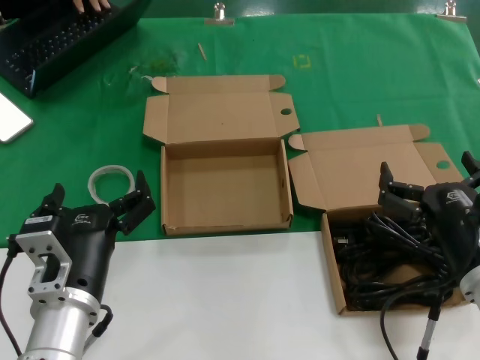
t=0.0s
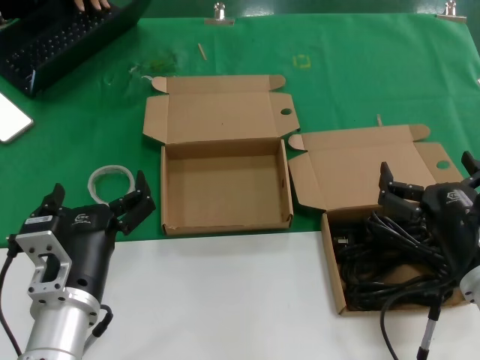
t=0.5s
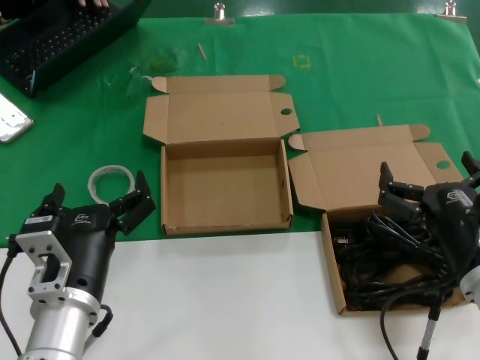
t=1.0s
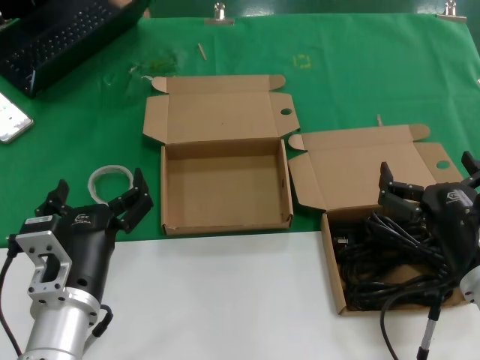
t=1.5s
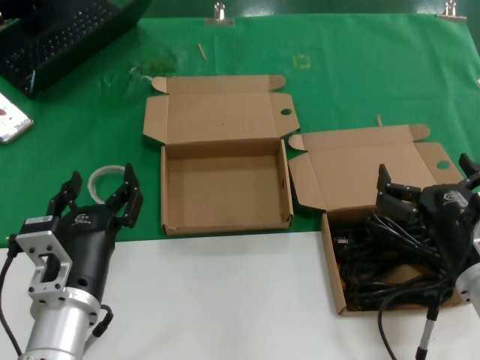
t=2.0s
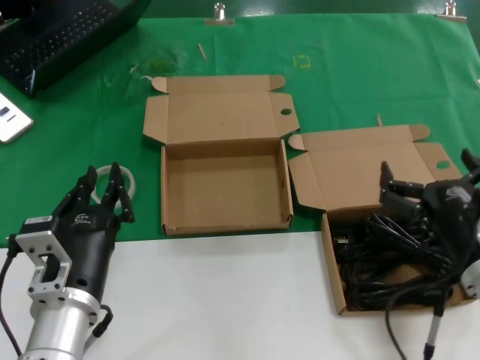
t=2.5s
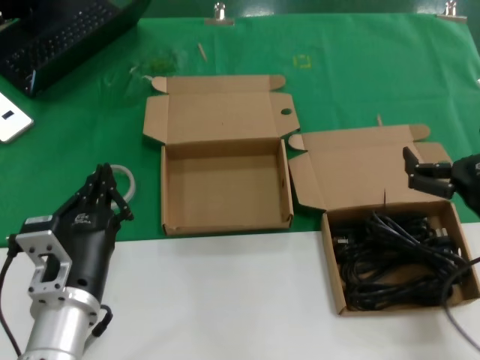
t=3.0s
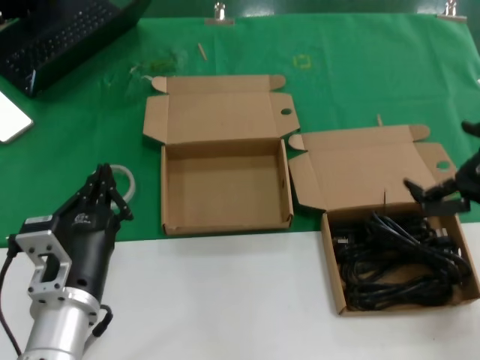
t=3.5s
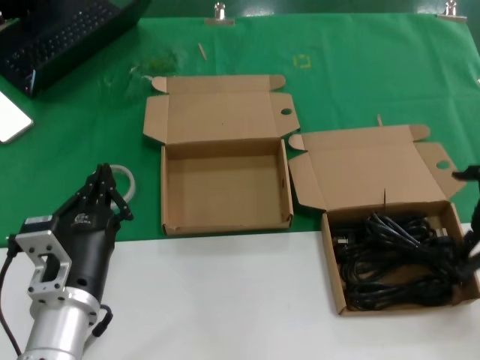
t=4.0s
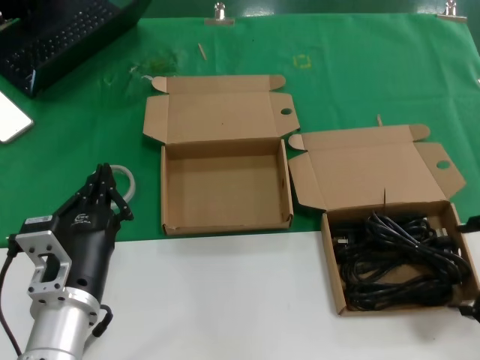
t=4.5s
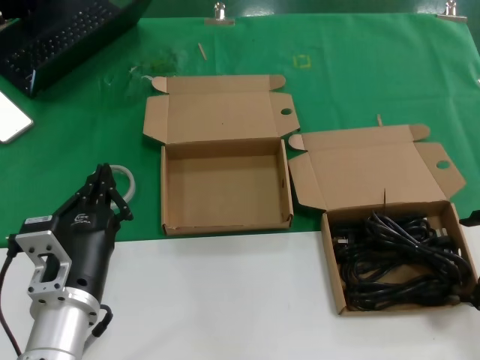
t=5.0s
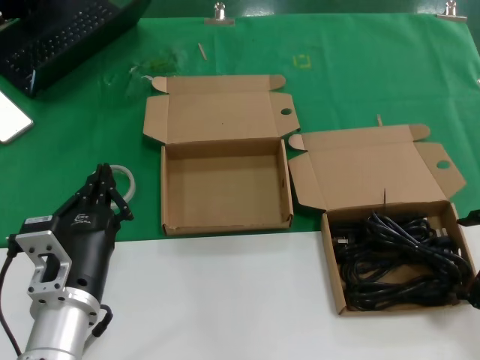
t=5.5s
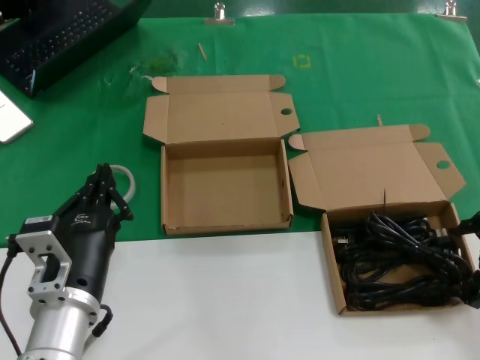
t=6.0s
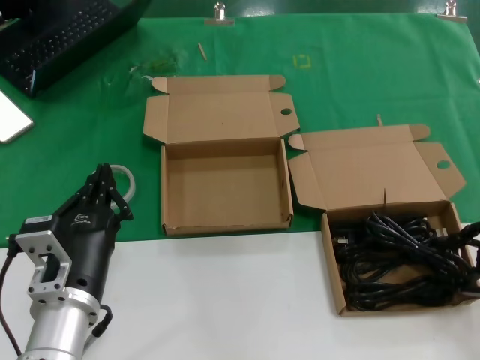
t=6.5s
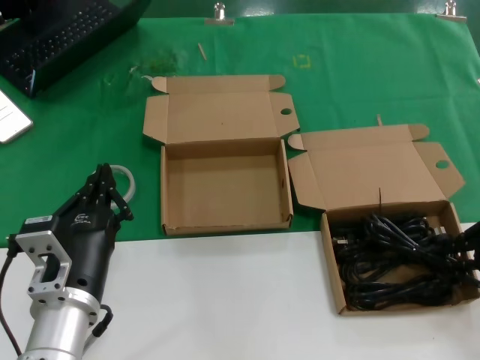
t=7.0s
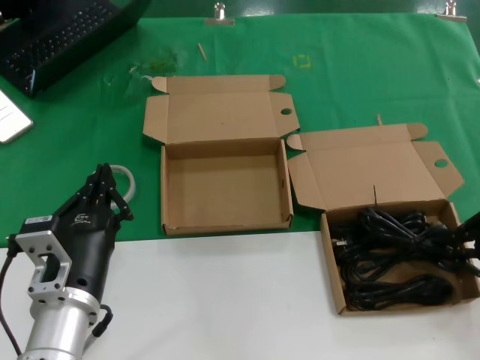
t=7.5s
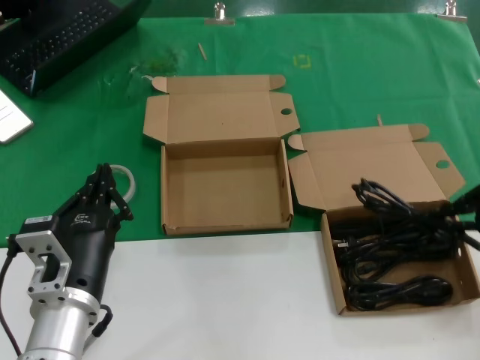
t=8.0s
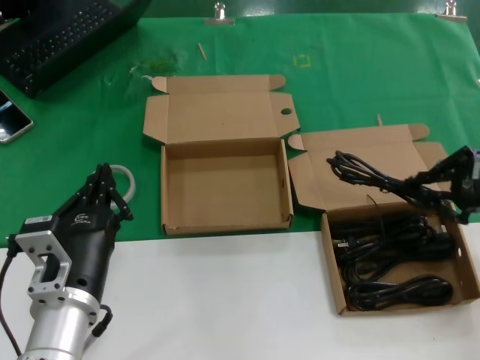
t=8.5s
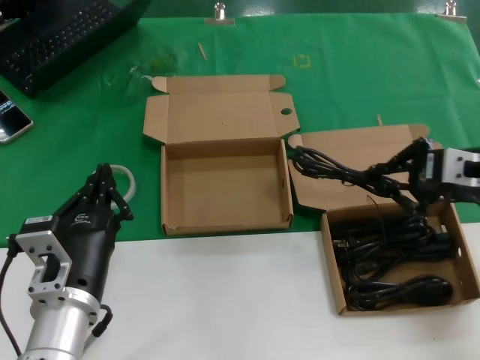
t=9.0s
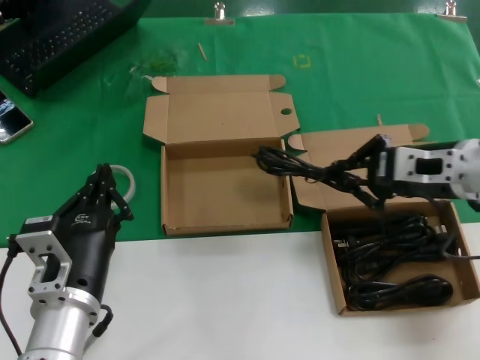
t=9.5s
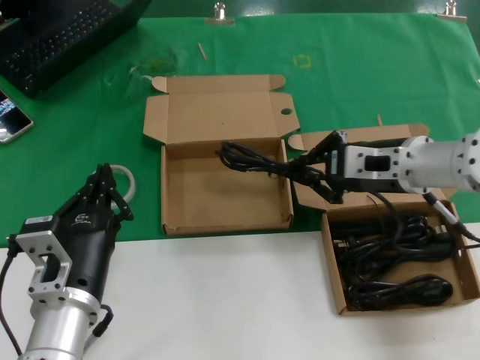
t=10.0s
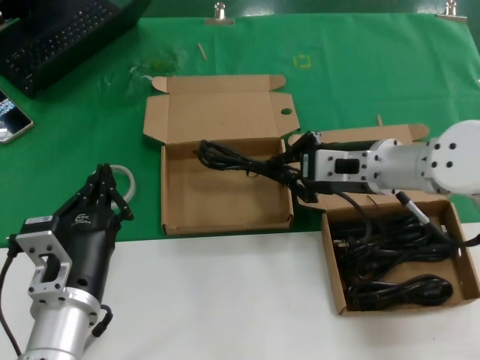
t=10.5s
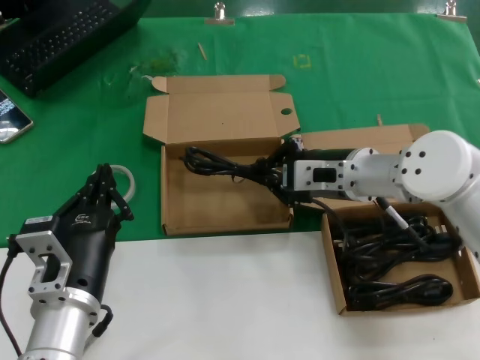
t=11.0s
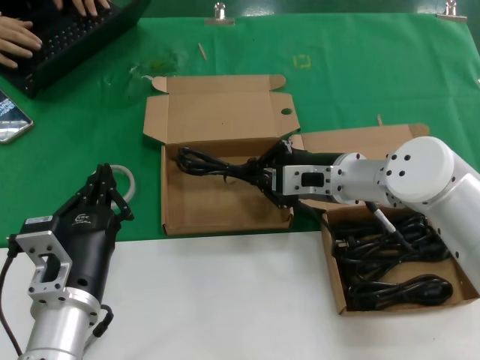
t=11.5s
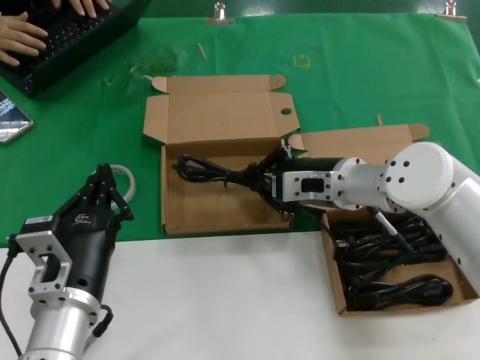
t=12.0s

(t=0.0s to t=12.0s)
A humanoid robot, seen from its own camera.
Task of the whole recording: take the parts from the box containing them and put them into an empty box.
Step, t=0.0s - t=6.5s: Grasp the data cable.
t=0.0s - t=2.0s: Neither hand changes place.
t=2.0s - t=4.0s: The right hand shifts roughly 20 cm to the right and upward.
t=4.0s - t=6.0s: The right hand shifts by about 5 cm.
t=6.0s - t=8.0s: The hands stay close to where they were, moving slightly.
t=8.0s - t=10.0s: The right hand goes approximately 20 cm to the left and forward.
t=10.0s - t=12.0s: The right hand travels to the left and downward by some 10 cm.

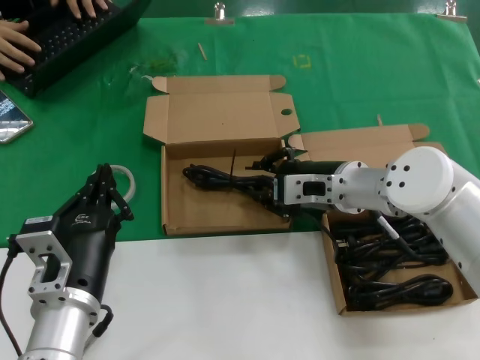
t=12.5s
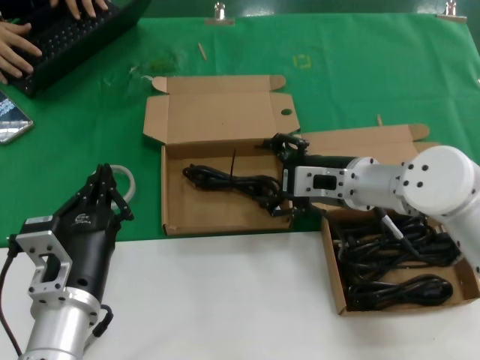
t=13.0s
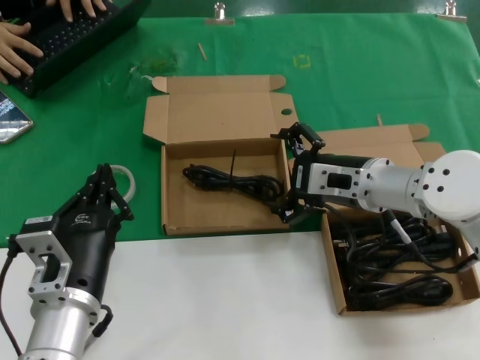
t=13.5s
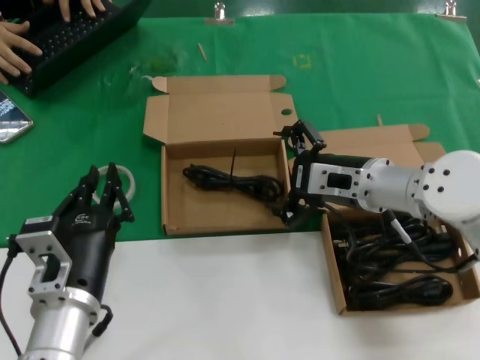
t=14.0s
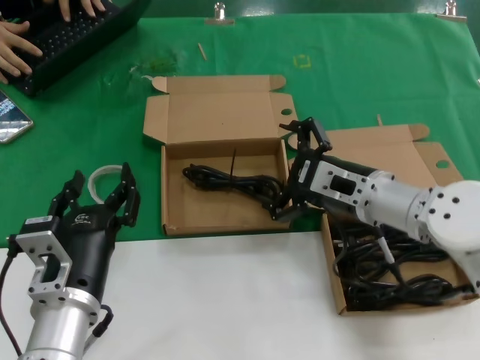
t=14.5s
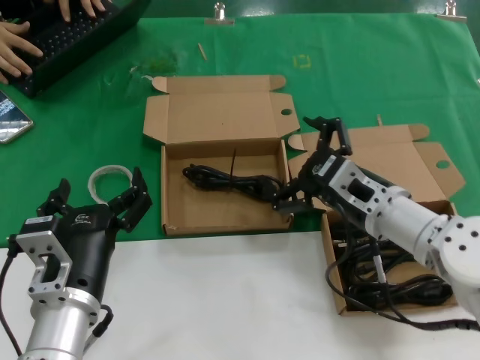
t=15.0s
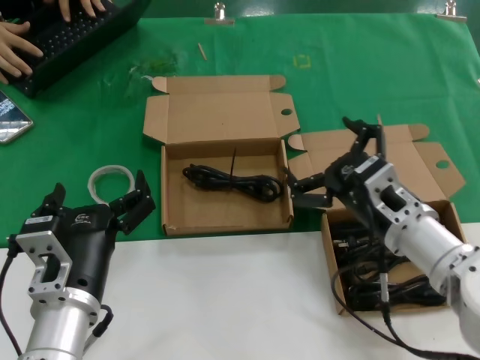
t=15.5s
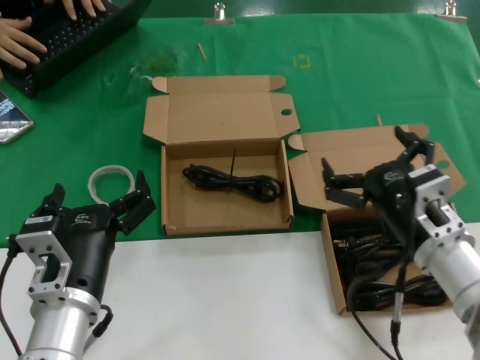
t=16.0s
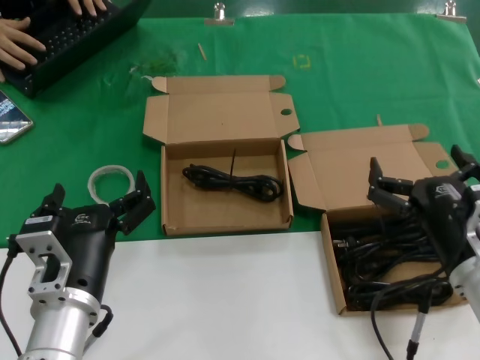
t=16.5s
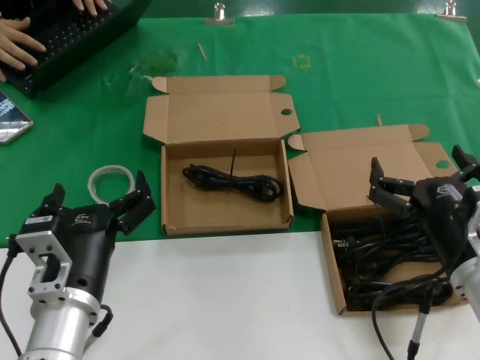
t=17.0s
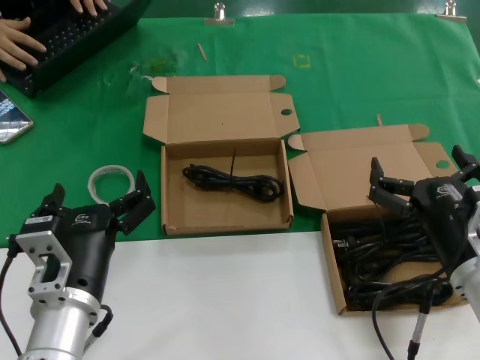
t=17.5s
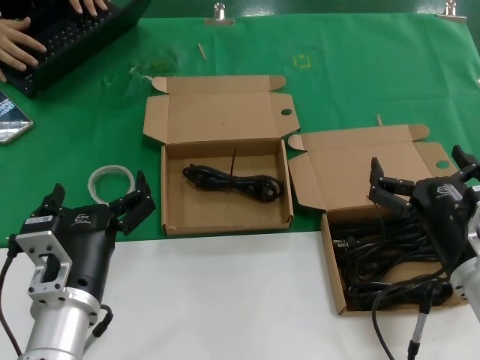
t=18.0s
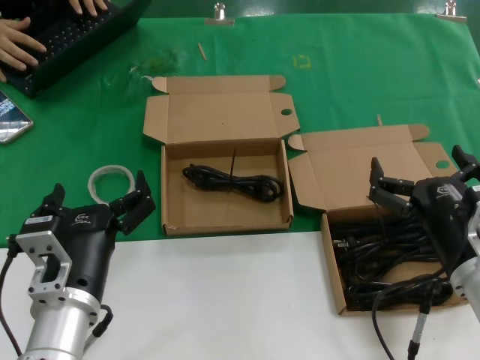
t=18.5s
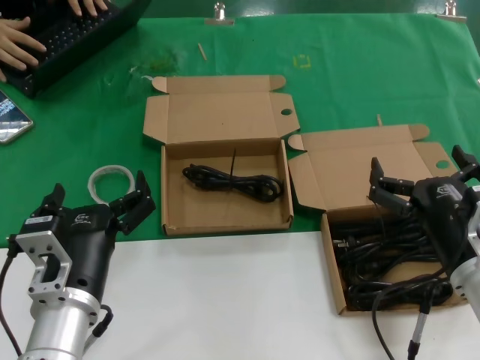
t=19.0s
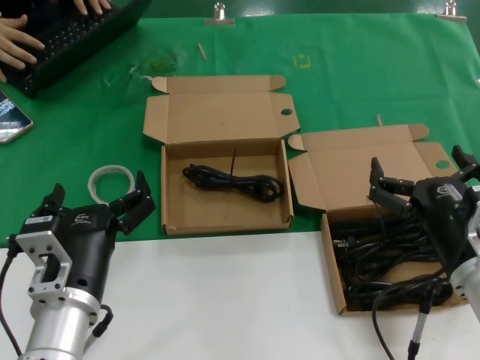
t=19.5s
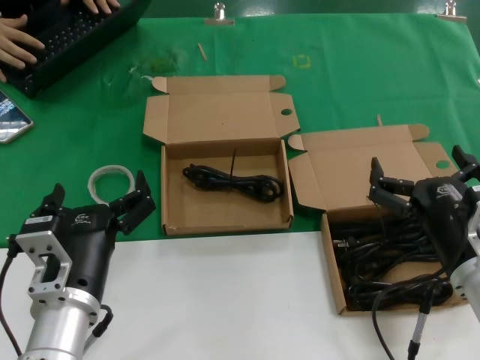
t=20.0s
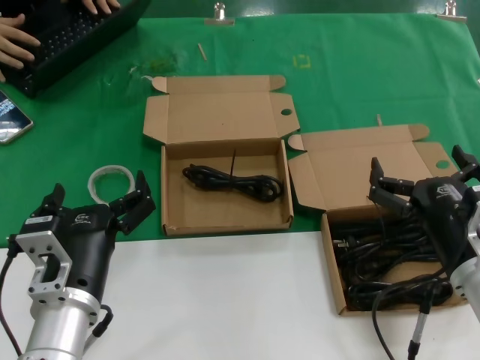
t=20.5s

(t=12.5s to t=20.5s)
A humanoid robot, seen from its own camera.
Task of the whole recording: take the parts from the box containing them and put them into an empty box.
t=14.5s - t=16.5s: The right hand goes approximately 15 cm backward and to the right.
t=16.5s - t=20.5s: Both hands stay about where they are.

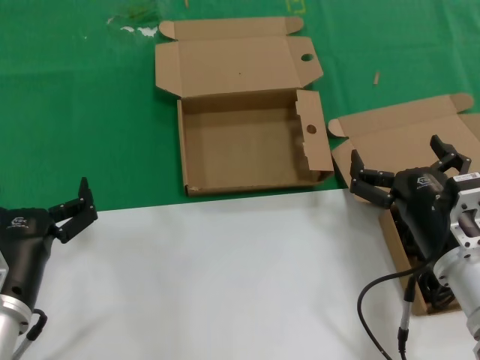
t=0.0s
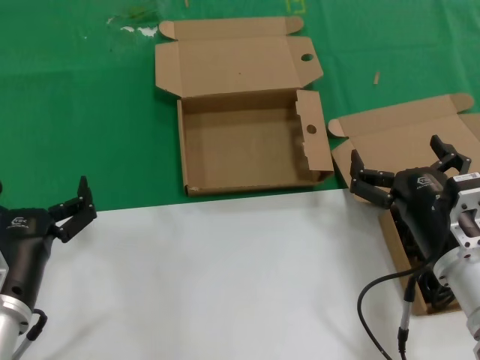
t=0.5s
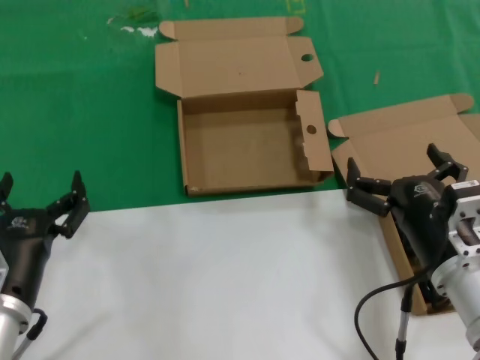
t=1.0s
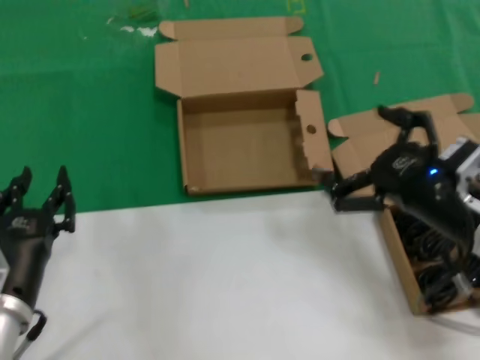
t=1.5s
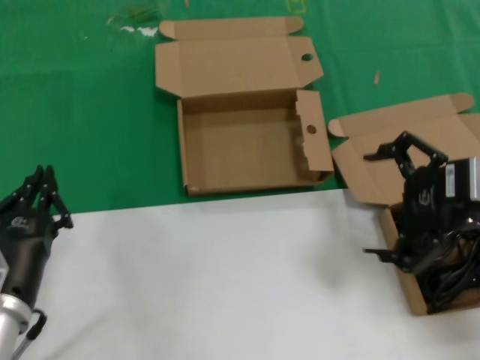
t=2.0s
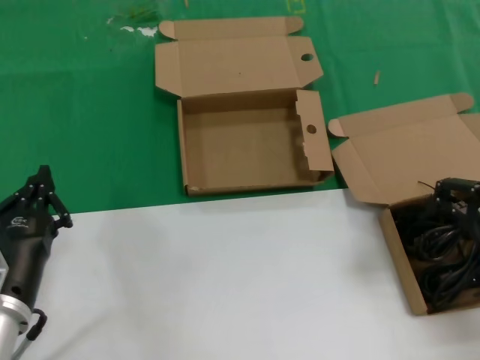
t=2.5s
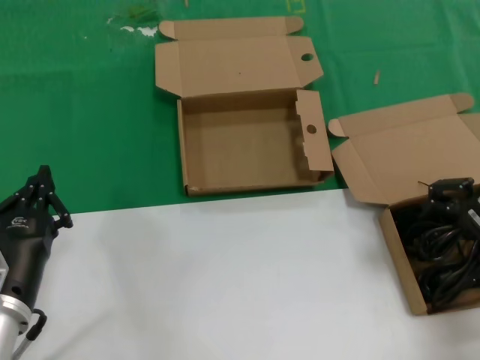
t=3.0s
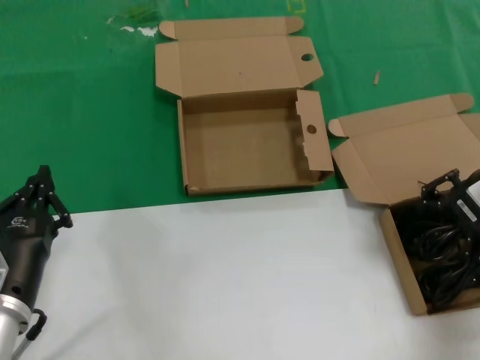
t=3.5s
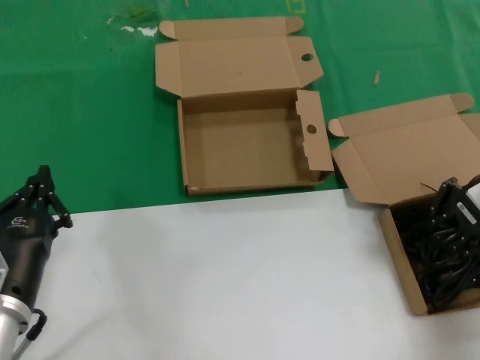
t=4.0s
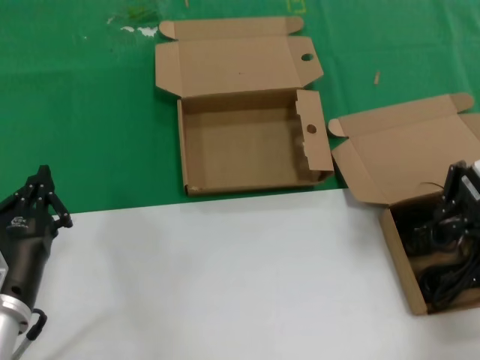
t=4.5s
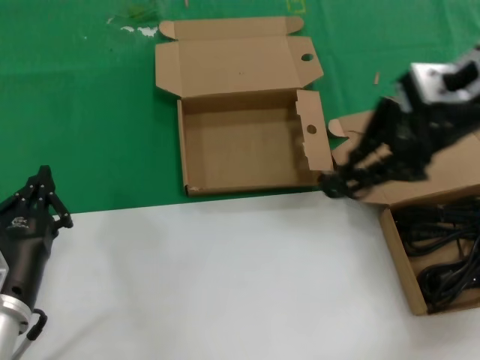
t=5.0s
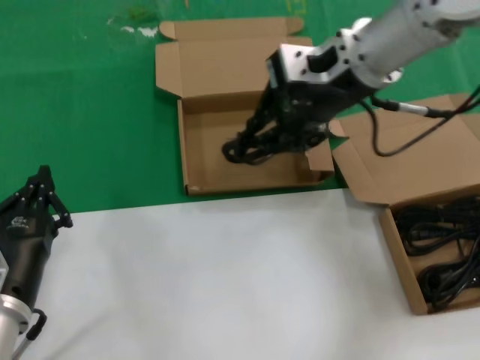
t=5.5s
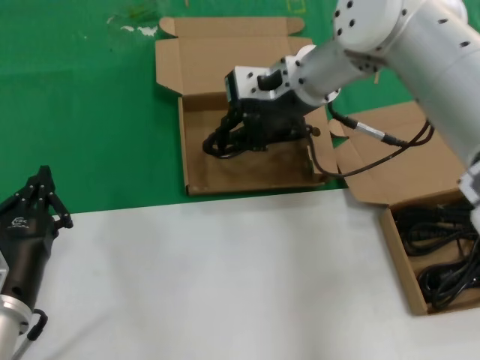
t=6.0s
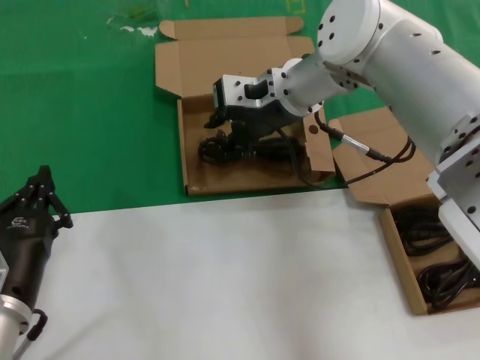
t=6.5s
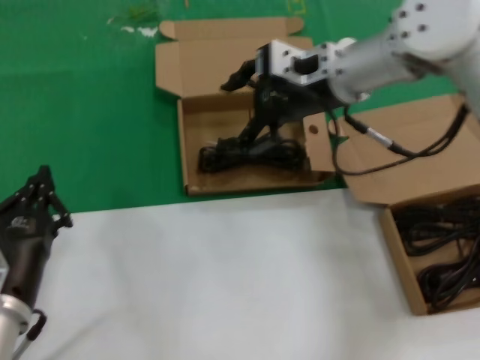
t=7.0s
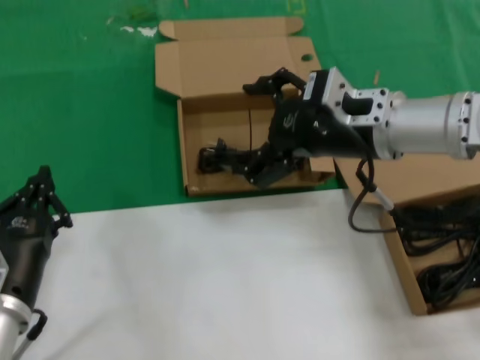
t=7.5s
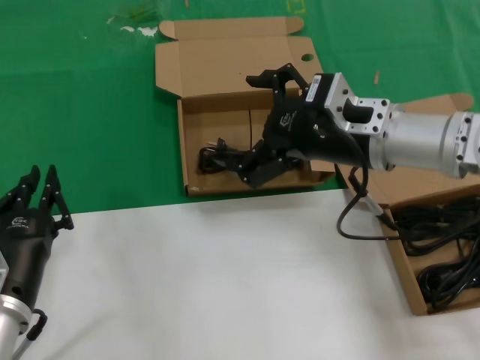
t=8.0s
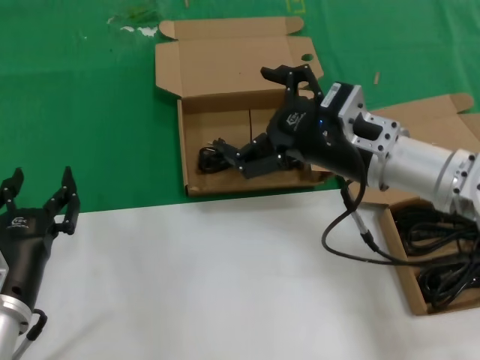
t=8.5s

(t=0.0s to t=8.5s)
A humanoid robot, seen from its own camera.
Task of the whole recording: take the parts from the box containing them and put them into an empty box.
Step, t=0.0s - t=4.0s: Grasp the data cable.
Step, t=4.5s - t=7.0s: Place the data cable in the another box.
t=0.0s - t=2.0s: The right hand shifts about 20 cm upward and to the right.
t=2.0s - t=4.0s: The right hand shifts approximately 10 cm forward.
t=4.0s - t=6.5s: The right hand goes some 30 cm to the left and forward.
t=6.5s - t=8.5s: The right hand travels backward, to the right and downward by roughly 20 cm.
